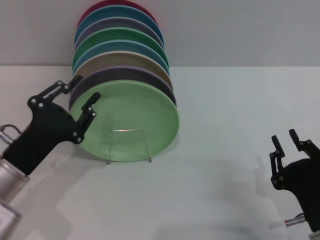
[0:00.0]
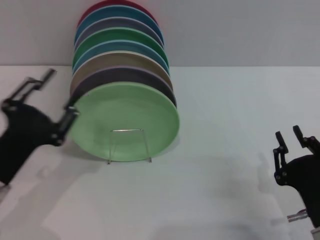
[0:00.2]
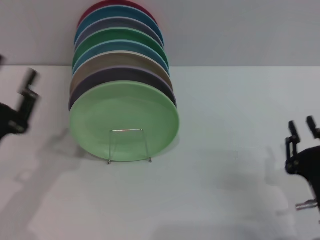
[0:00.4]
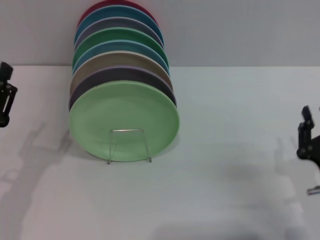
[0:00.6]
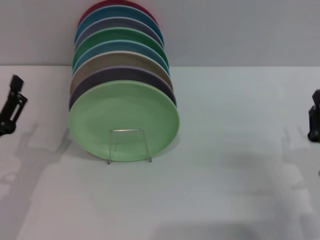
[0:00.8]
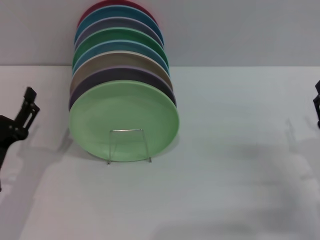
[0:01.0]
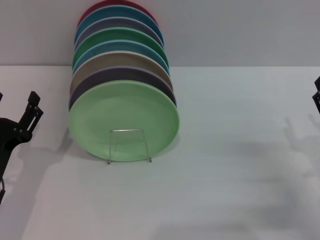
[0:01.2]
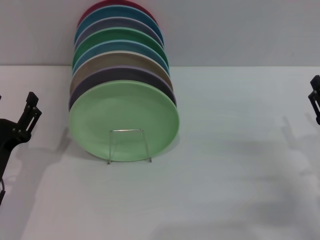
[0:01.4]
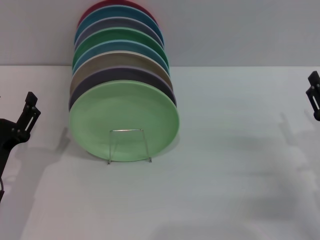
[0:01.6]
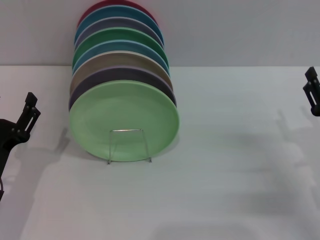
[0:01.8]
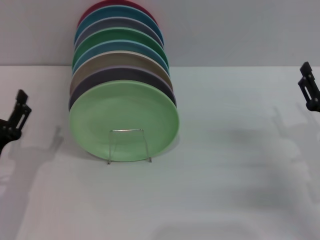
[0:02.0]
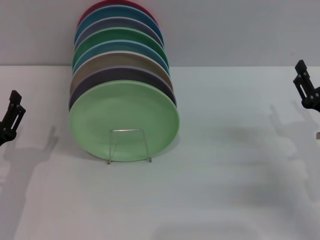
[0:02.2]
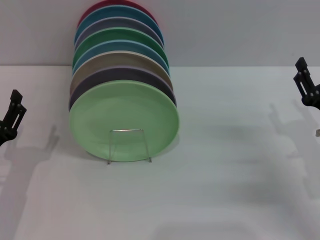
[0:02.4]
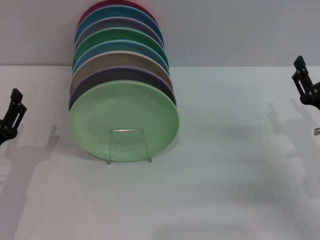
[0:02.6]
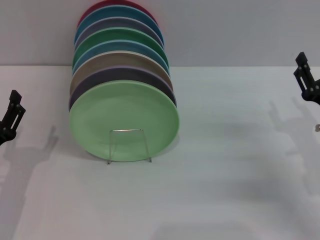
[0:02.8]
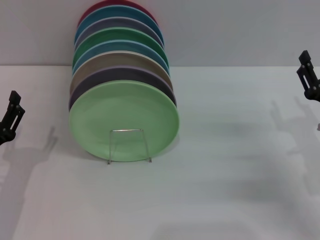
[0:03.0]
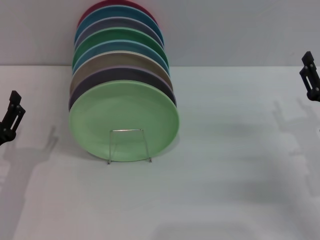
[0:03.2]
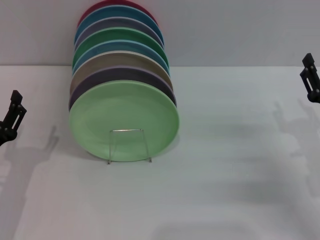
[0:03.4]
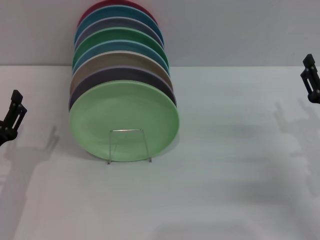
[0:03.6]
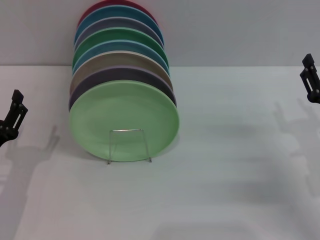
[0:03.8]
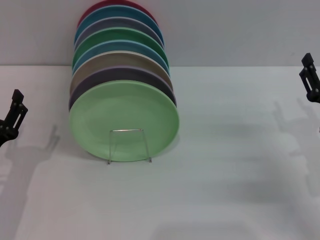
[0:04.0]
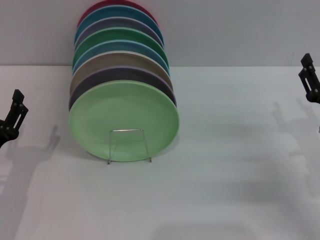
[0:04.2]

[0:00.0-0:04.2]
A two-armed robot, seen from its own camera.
Task of the whole recording: Grip the plate with one hand, pass it to the other, then set it on the shelf.
0:00.0 to 0:01.4: The left gripper opens its fingers. The right gripper goes roughly 10 cm forward and to the right, and opens its fingers.
0:01.4 to 0:02.8: There are only small adjustments of the grippers.
0:02.8 to 0:04.2: The two grippers keep their place.

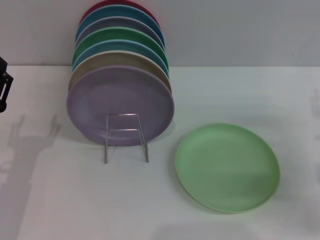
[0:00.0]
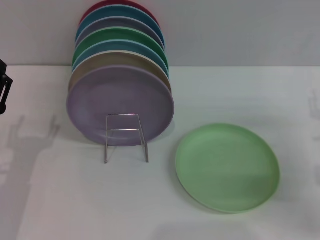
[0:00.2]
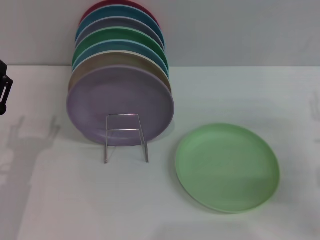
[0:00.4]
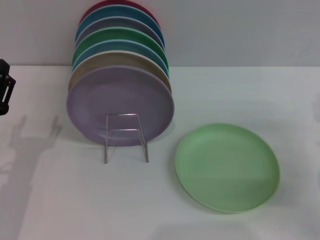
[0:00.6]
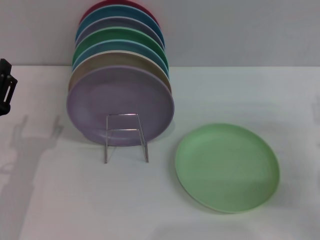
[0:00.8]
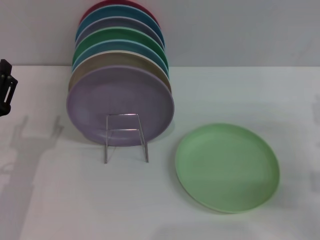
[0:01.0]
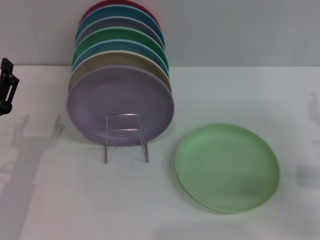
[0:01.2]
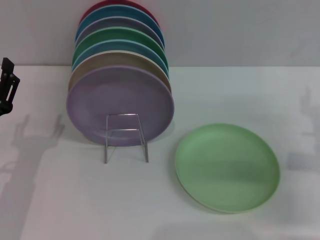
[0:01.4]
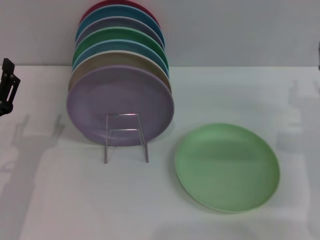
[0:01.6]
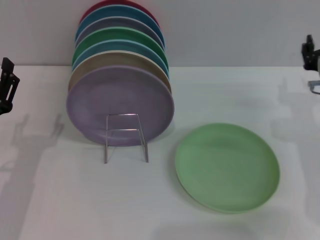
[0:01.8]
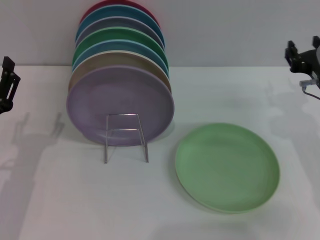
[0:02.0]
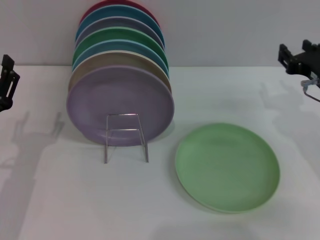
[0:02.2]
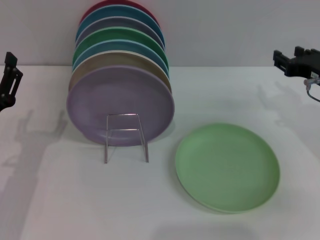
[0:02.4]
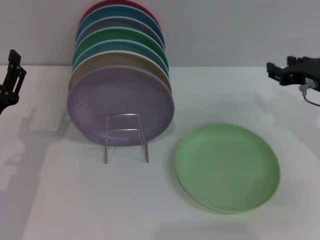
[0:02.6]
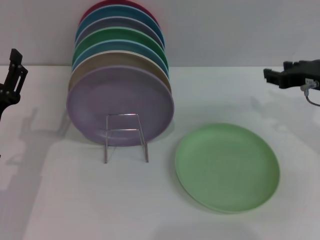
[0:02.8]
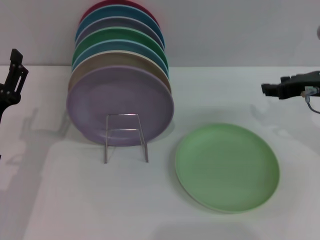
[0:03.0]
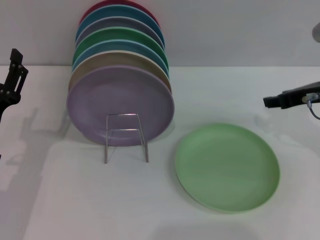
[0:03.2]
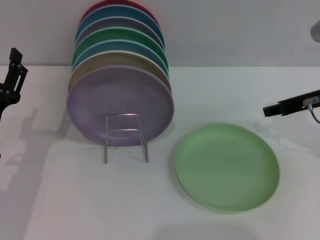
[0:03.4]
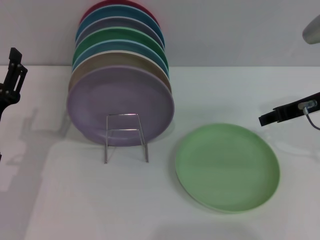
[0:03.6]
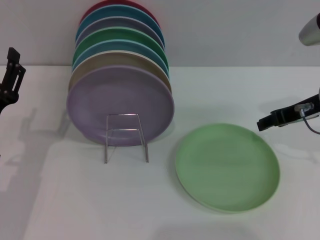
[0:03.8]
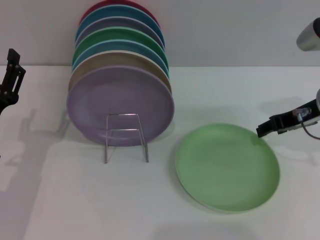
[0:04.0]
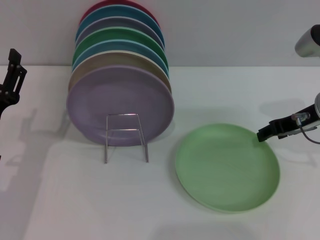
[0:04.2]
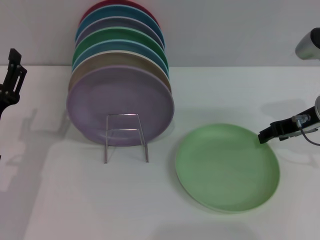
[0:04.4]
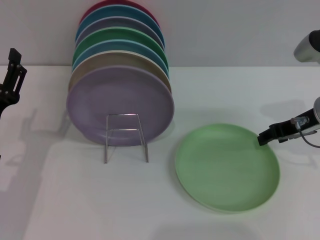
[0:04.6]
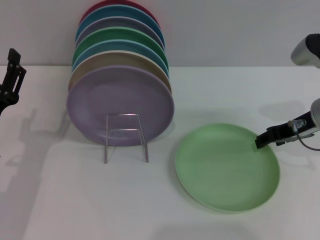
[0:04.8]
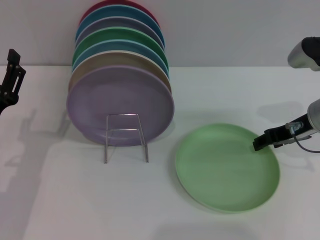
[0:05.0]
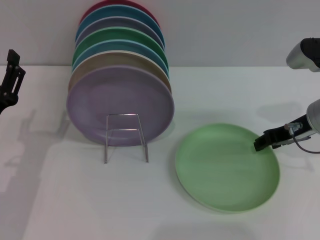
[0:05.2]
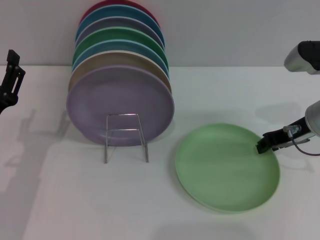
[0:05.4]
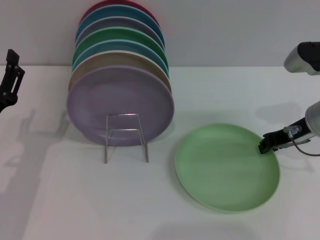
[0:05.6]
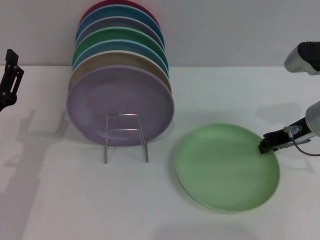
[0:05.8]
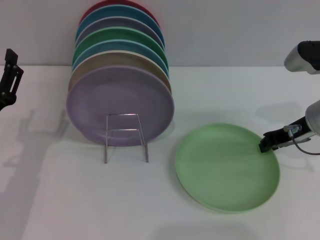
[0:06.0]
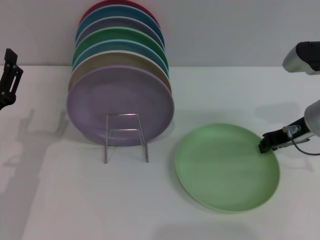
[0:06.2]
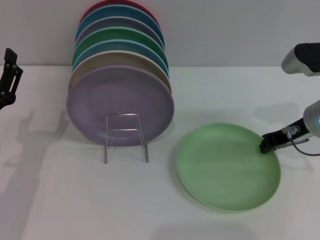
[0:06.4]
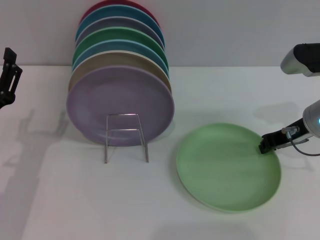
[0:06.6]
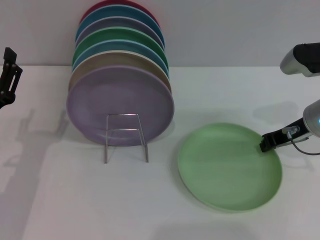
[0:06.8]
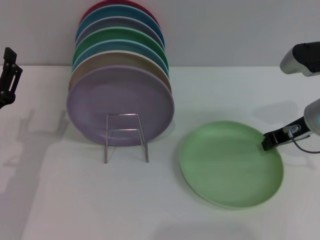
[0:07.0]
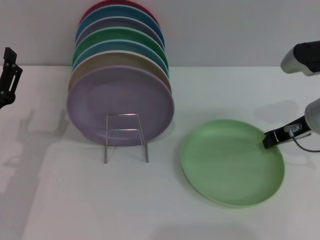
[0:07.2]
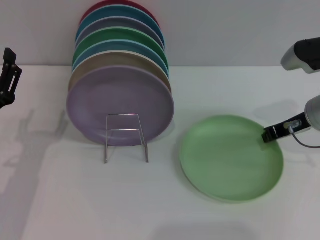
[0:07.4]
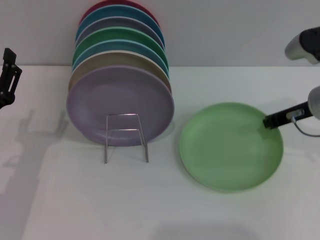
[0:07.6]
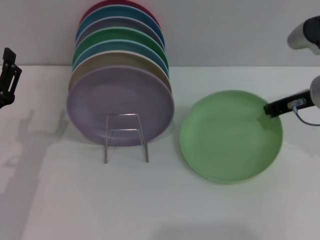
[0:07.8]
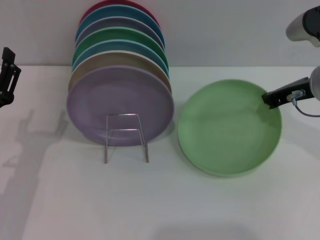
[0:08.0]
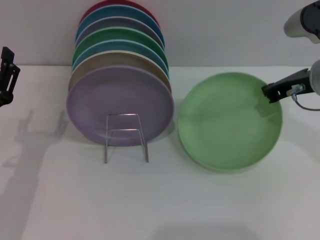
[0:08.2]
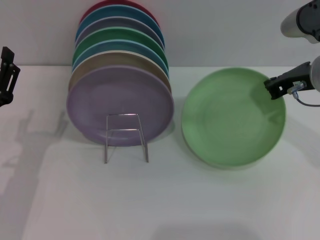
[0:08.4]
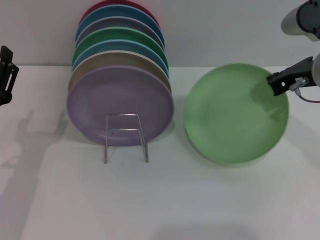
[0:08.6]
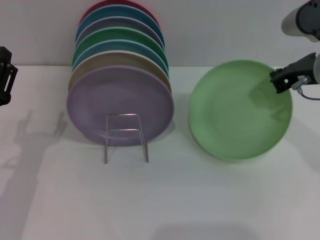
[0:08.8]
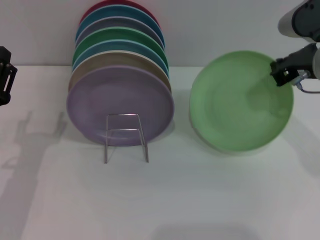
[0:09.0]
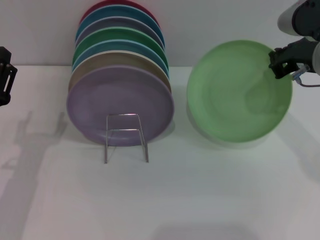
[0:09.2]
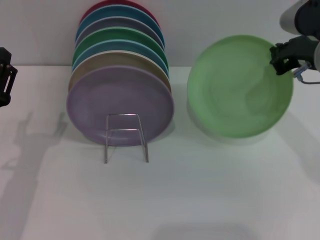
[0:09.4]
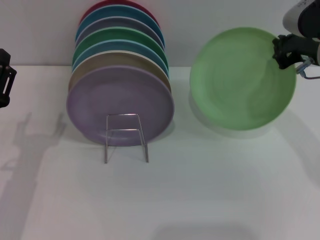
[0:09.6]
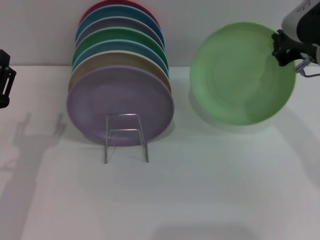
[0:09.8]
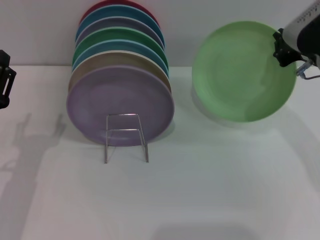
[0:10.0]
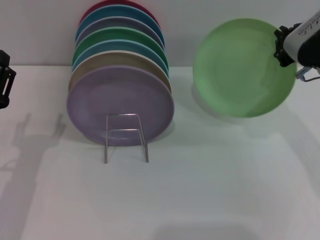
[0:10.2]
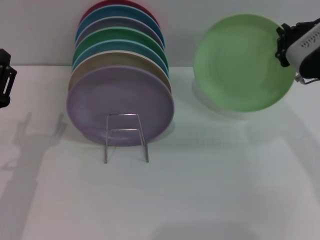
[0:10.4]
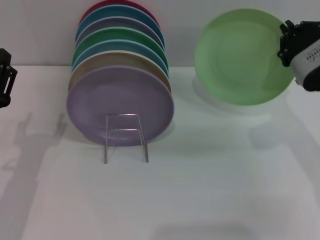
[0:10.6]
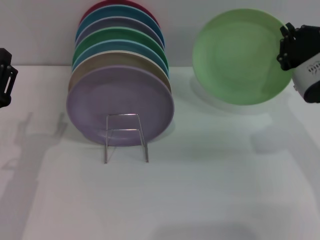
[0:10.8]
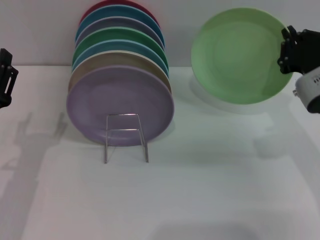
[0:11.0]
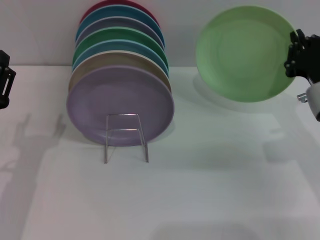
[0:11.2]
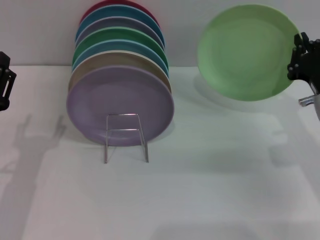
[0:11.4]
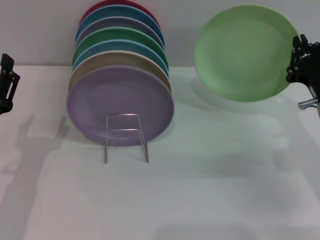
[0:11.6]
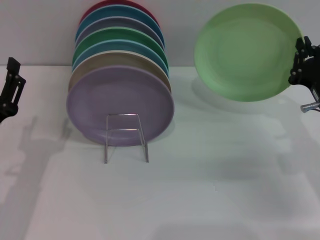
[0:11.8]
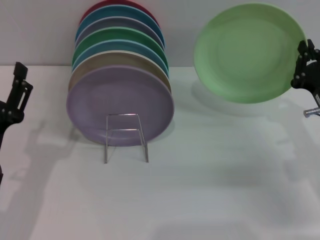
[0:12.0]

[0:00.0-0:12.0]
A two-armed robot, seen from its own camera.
Task of the whole recording: Grip the plate with one hand, pass it to the other, then set it on the shelf.
Step, 0:00.0 to 0:11.4: Pick up the plate with the right gripper.
0:00.0 to 0:01.6: The right gripper changes place by roughly 5 cm.
0:01.6 to 0:03.0: The right gripper goes roughly 10 cm upward.
0:04.4 to 0:06.0: The right gripper closes up.
0:06.0 to 0:07.6: There are only small adjustments of the grippers.
0:07.6 to 0:09.0: The right gripper goes roughly 5 cm upward.
0:10.4 to 0:12.0: The right gripper moves downward, approximately 10 cm.

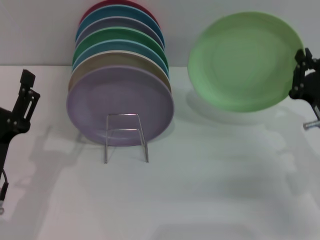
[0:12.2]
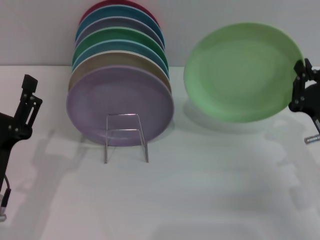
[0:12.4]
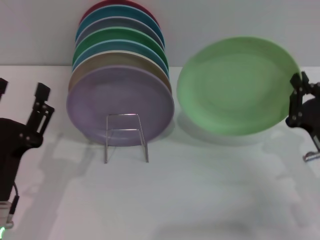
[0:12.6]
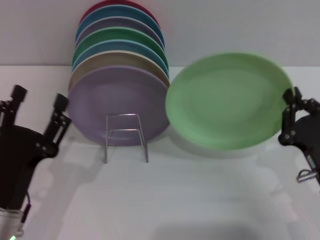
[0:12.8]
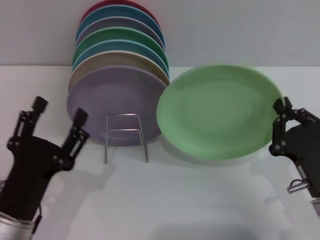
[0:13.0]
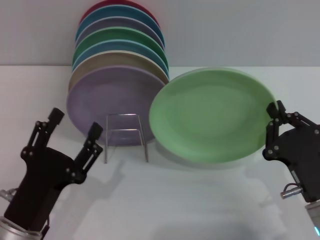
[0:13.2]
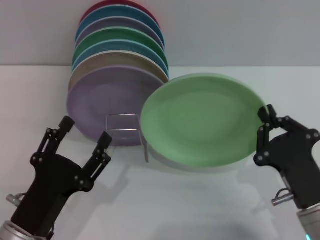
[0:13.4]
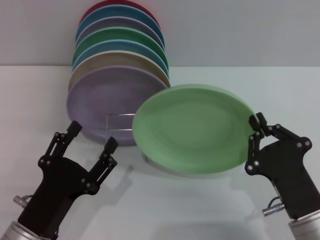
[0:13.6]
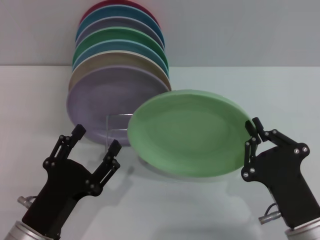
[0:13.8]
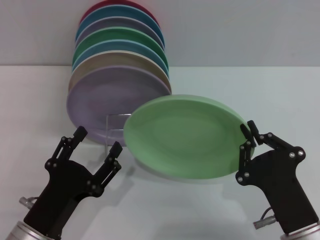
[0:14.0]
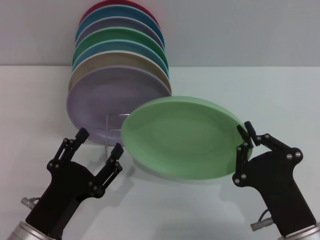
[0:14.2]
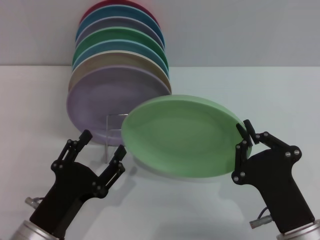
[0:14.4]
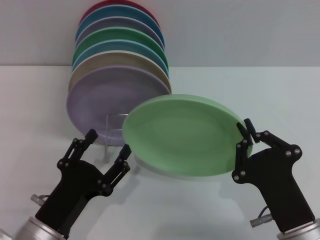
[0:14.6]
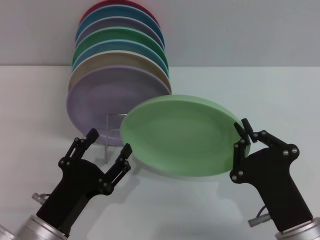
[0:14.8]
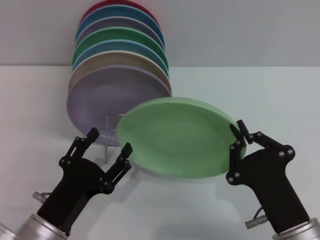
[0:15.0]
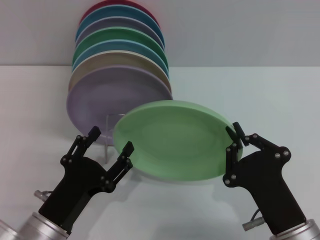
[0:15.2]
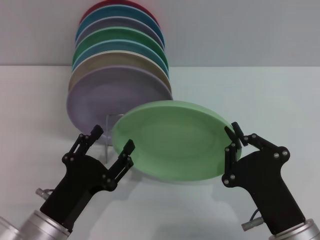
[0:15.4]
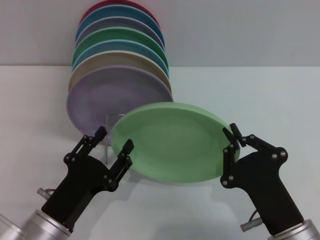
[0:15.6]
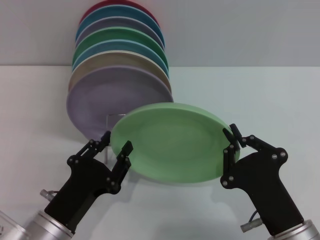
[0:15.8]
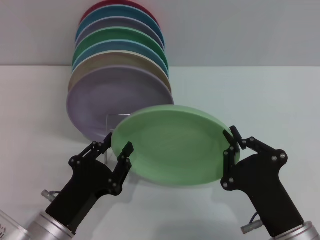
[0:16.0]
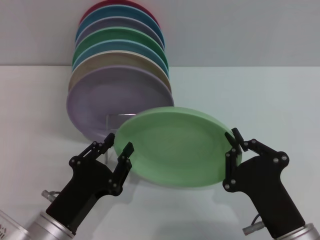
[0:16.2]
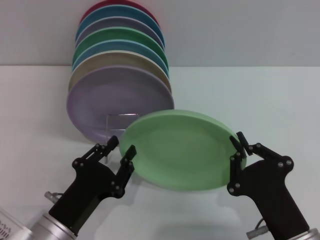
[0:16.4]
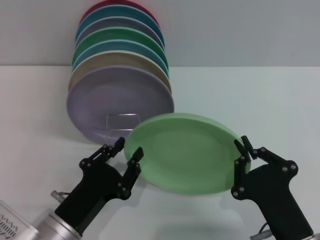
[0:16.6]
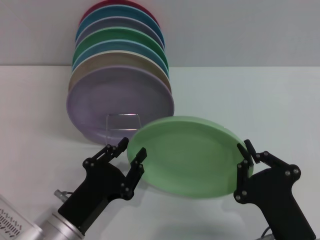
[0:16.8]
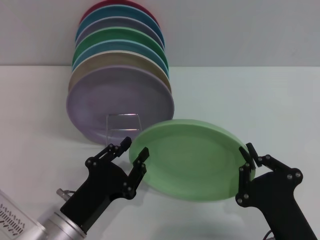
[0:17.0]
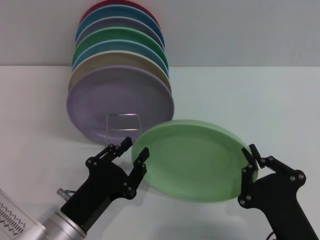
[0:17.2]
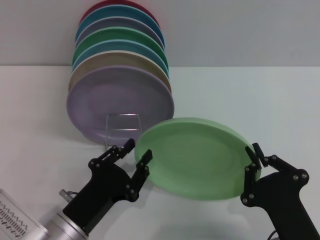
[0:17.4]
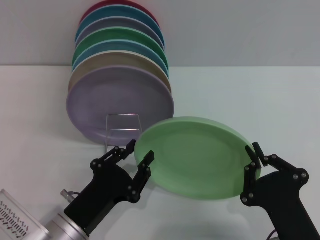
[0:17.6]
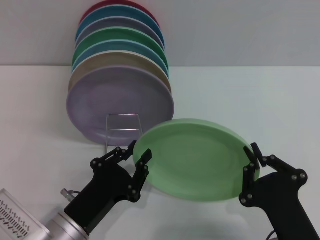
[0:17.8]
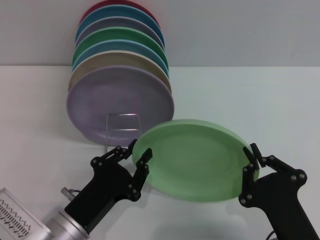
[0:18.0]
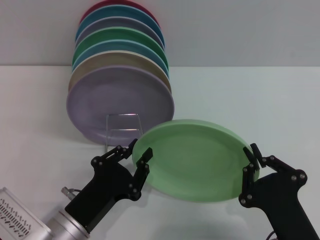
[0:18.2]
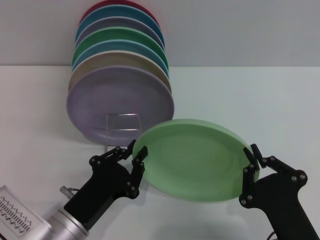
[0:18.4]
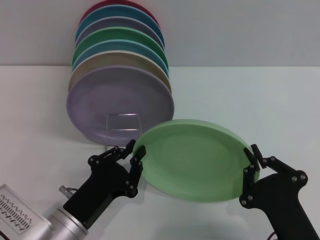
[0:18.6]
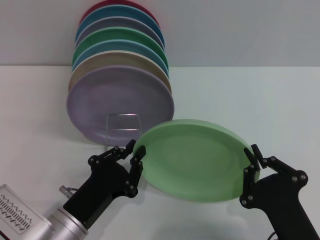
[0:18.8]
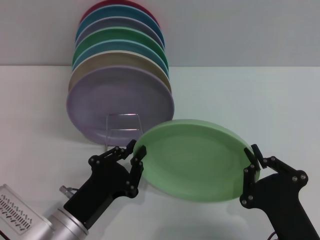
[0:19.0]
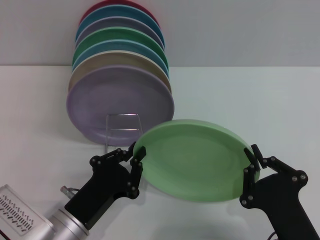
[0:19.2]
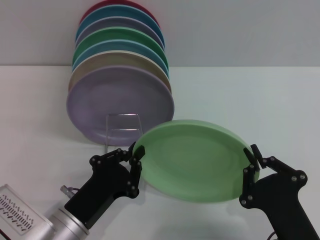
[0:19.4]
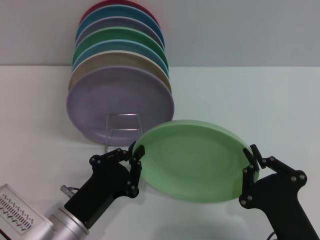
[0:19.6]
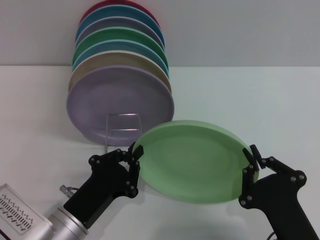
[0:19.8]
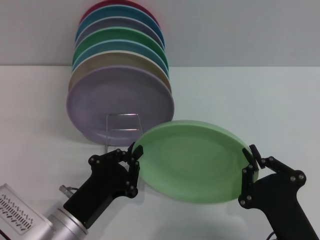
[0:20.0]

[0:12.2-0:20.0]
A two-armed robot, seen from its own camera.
Task of the whole recording: Grip the plate with one hand, pass it to the other, then set it on the shelf.
0:12.2 to 0:13.8: The right gripper goes about 15 cm backward and to the left. Meanwhile the left gripper moves approximately 5 cm.
0:13.8 to 0:15.4: The grippers stay close to where they were, moving slightly.
0:15.4 to 0:16.8: The left gripper closes.
0:16.8 to 0:20.0: The two grippers keep their place.
